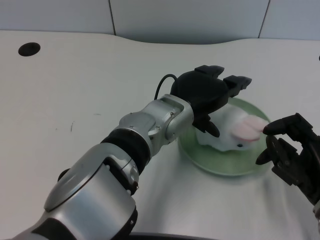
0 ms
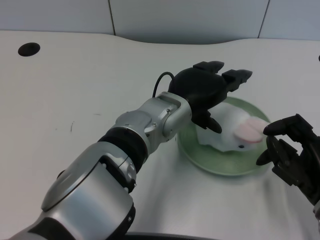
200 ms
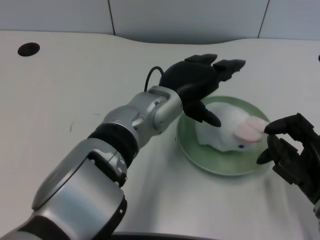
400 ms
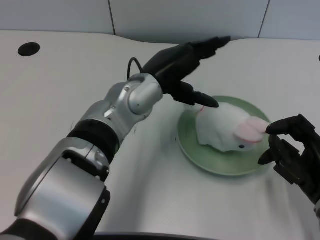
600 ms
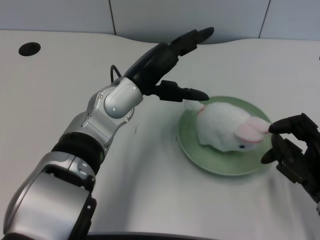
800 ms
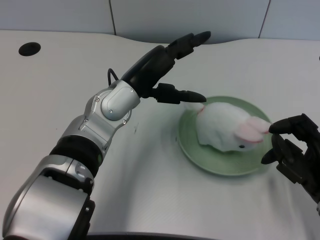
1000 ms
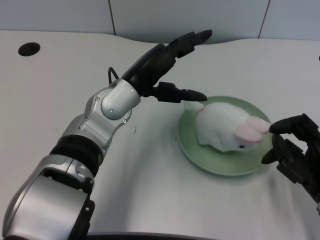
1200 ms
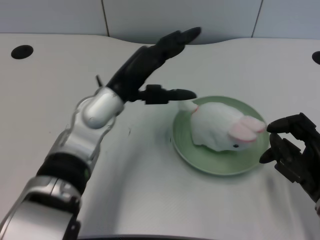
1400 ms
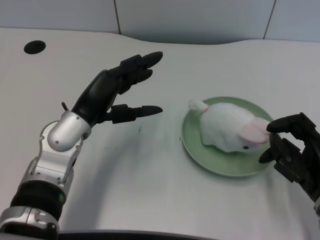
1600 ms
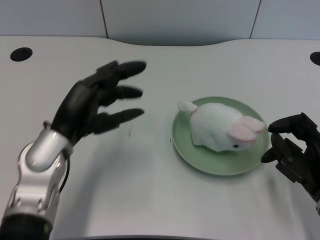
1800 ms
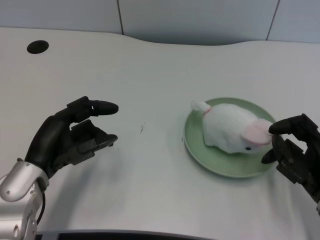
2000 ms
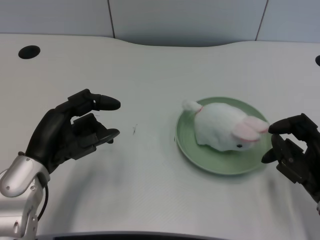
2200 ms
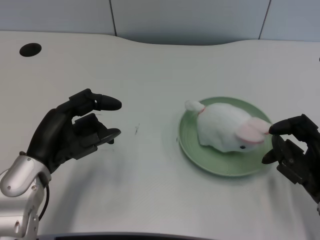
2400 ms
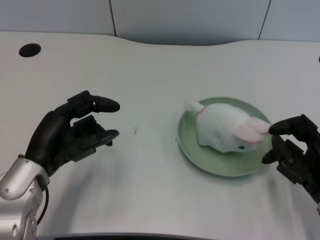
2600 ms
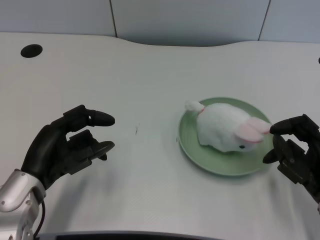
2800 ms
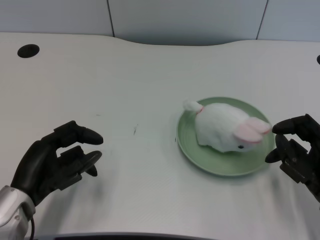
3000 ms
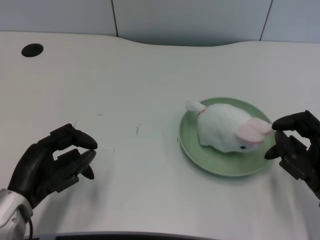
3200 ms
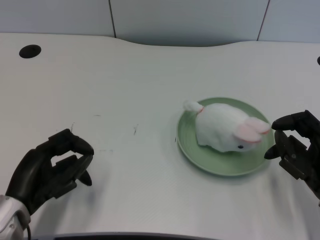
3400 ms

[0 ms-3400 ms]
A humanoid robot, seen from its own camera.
Task of the whole recording: pick up the rabbit doll from the table and place it on the plate.
0 ms to 1600 ms: The left hand shifts some 15 cm to the left.
1600 ms to 3400 ms: The left hand travels backward, to the left and downward by about 15 cm.

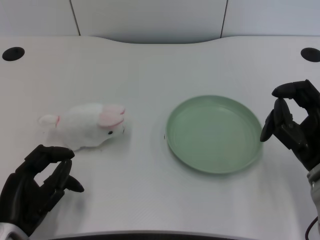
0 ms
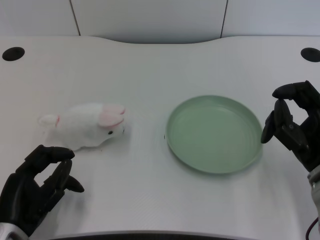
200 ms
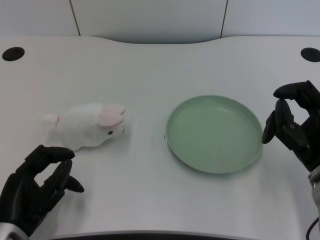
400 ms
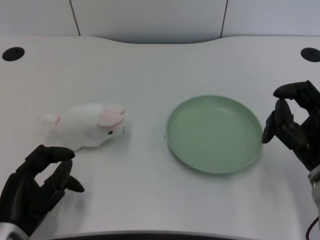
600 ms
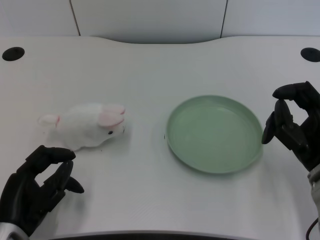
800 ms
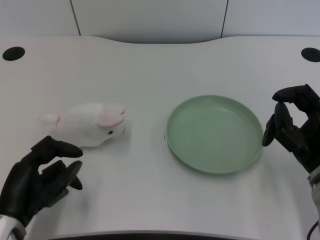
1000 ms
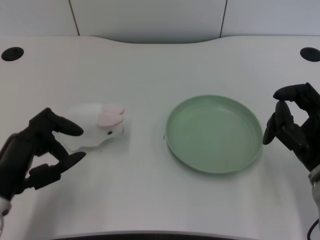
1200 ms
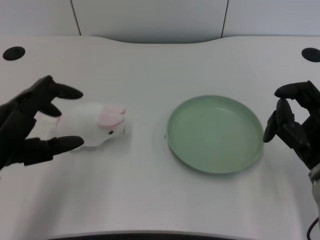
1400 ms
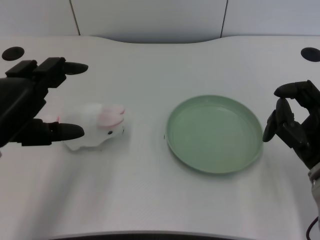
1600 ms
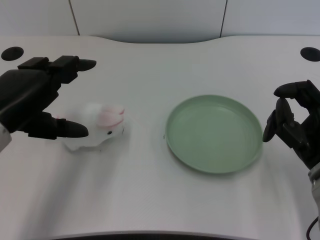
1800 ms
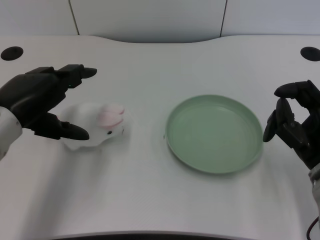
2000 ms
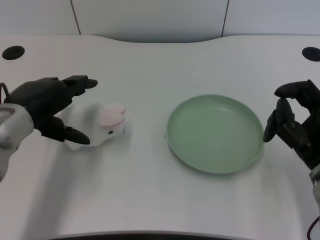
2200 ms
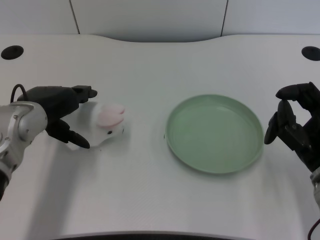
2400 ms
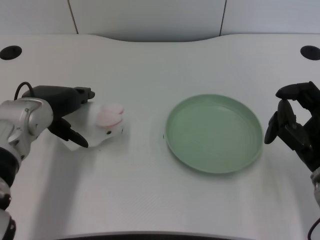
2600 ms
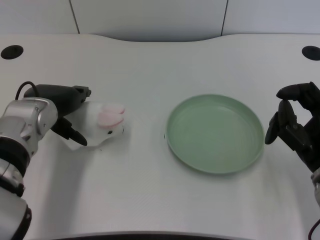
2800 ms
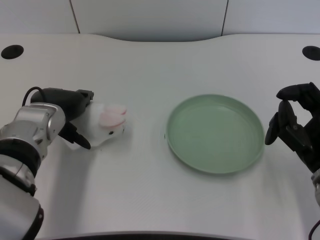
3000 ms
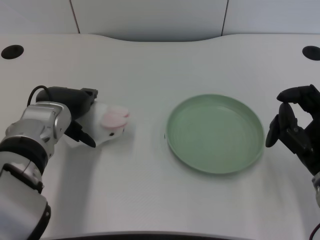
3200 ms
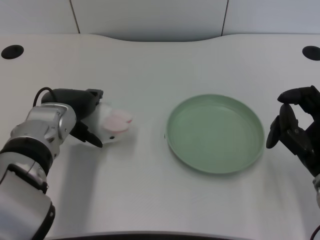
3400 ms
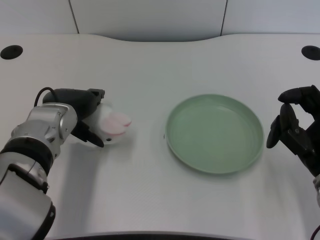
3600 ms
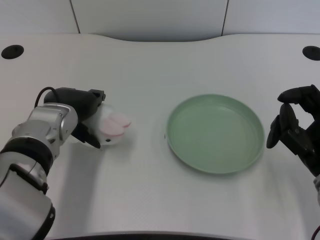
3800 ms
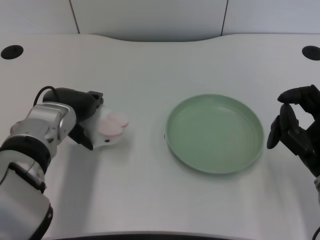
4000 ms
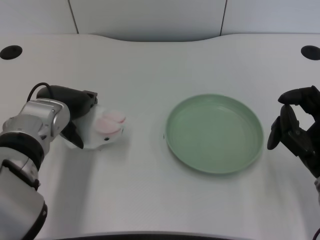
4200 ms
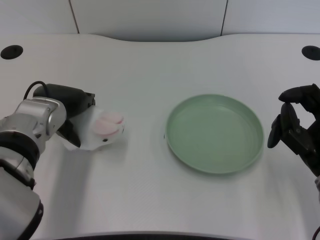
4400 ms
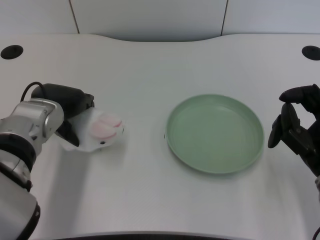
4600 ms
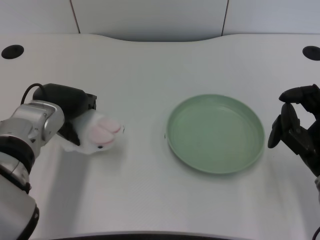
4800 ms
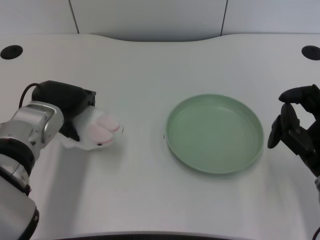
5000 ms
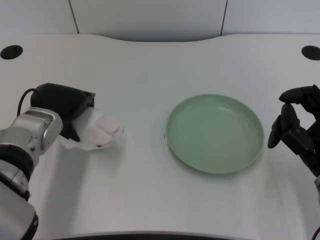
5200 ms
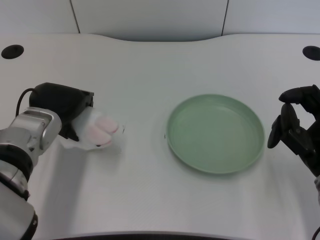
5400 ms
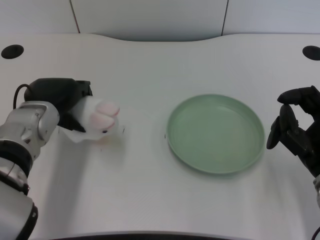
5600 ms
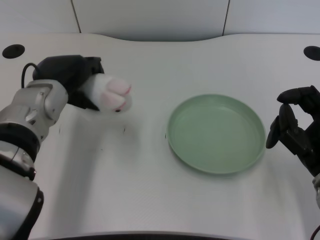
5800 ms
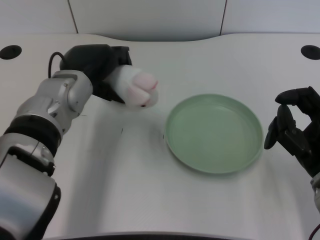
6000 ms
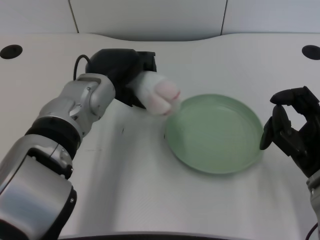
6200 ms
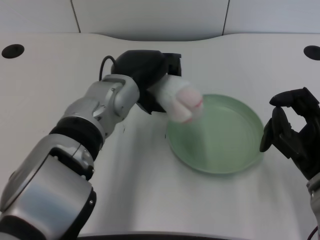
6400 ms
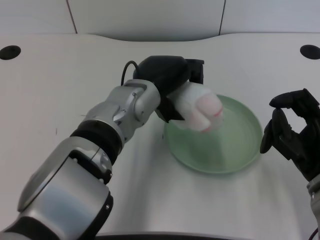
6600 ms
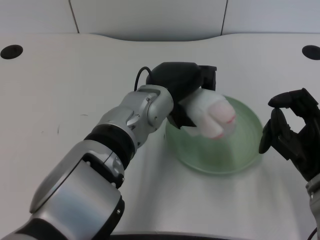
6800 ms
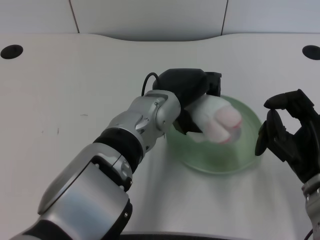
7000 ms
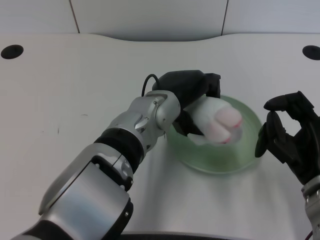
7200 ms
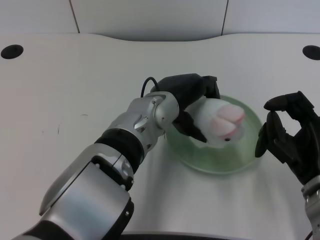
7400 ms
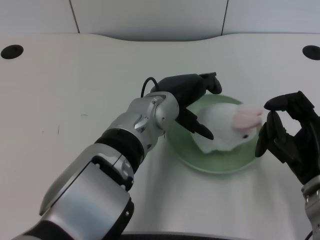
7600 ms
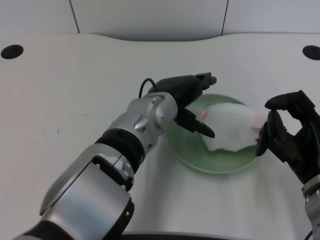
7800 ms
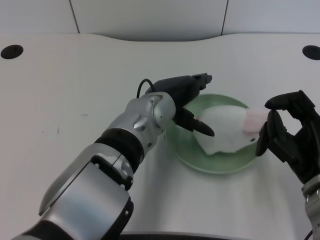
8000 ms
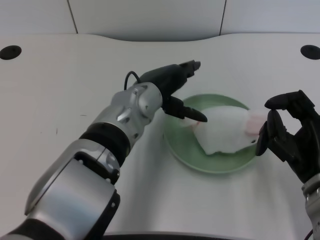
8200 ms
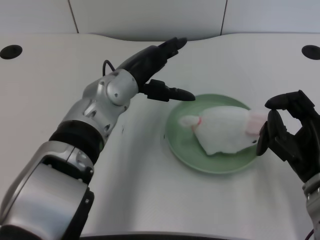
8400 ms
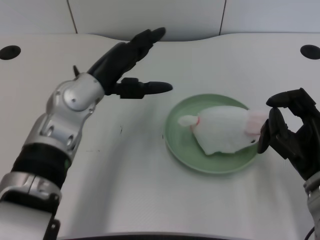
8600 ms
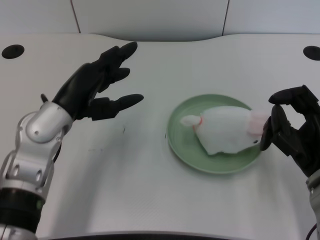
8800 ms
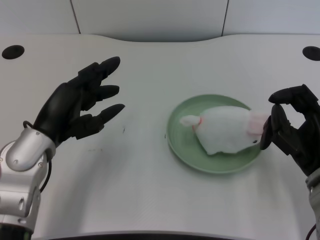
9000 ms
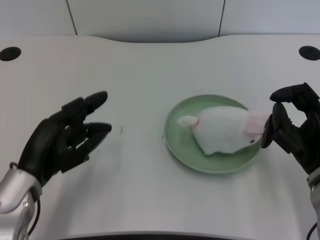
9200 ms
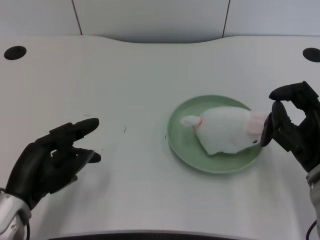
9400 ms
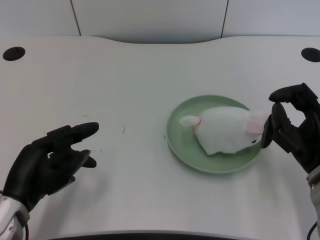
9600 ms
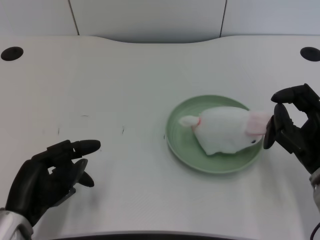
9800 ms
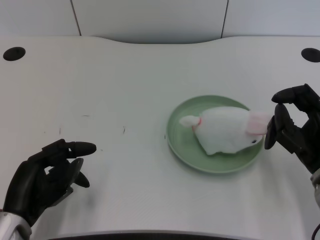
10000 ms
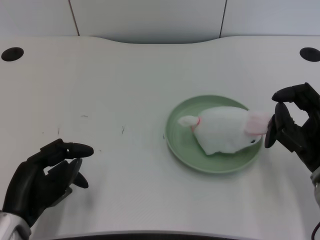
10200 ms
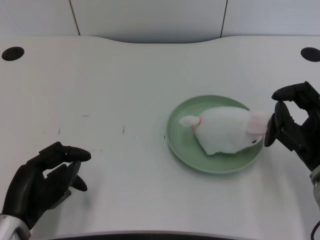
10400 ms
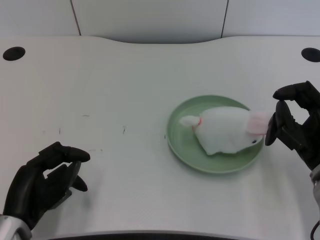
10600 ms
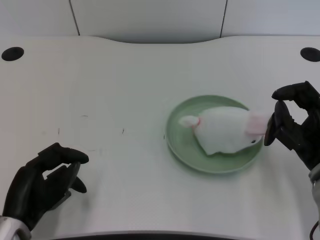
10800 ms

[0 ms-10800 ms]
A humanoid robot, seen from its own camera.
Task of the whole recording: pick up the rabbit doll from the table and place it on the plate.
Step, 1000 ms to 5400 ms: Grasp the rabbit doll with the left gripper.
Step, 5800 ms to 7600 ms: Place the rabbit doll into the plate with the left gripper.
1600 ms to 3000 ms: The left hand moves forward, to the right and downward, roughly 15 cm.
3000 ms to 4600 ms: The hands make only small movements.
4600 ms to 6200 ms: The left hand heads to the right, covering some 5 cm.
6200 ms to 7800 ms: The left hand travels to the right by about 10 cm.
7800 ms to 9200 ms: The left hand is displaced to the left and backward by about 20 cm.
9200 ms to 10800 ms: The left hand shifts some 5 cm downward.

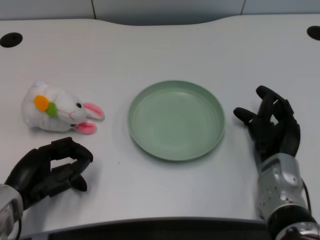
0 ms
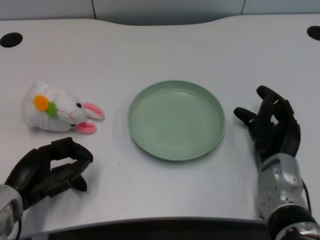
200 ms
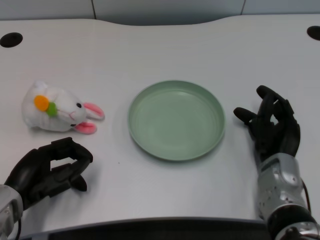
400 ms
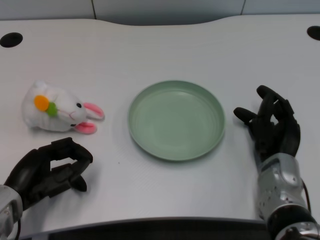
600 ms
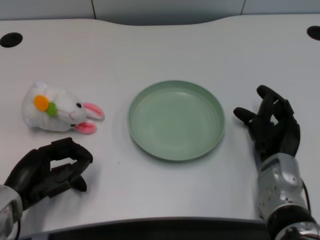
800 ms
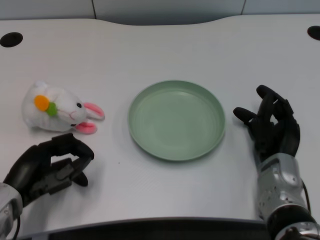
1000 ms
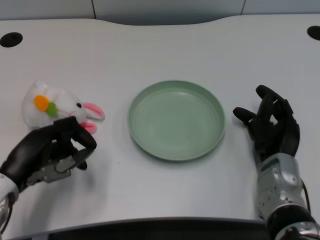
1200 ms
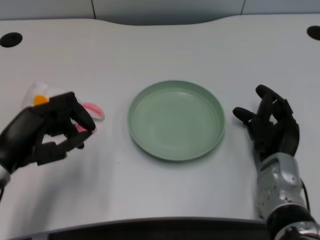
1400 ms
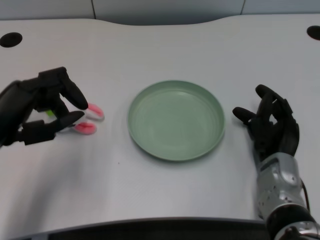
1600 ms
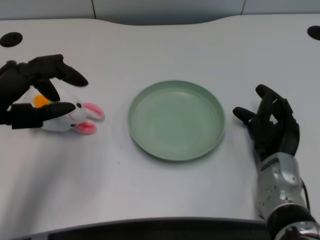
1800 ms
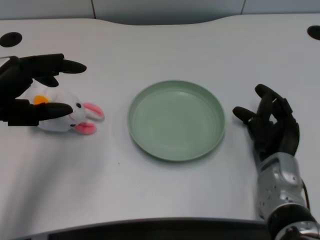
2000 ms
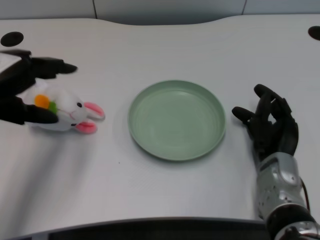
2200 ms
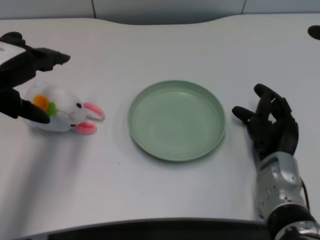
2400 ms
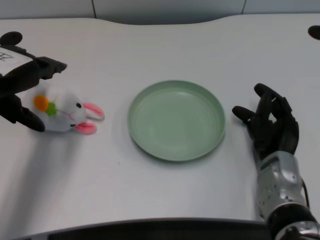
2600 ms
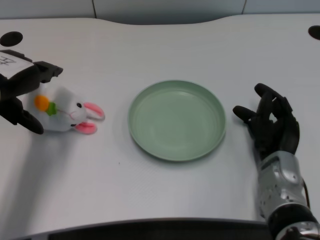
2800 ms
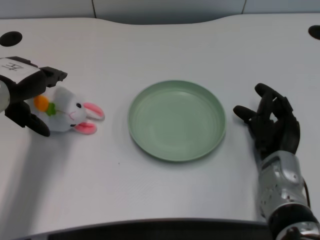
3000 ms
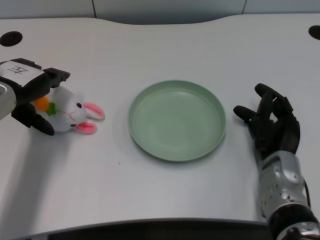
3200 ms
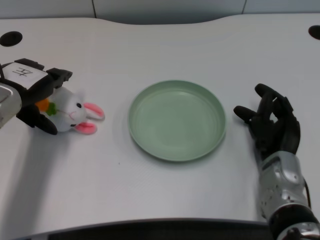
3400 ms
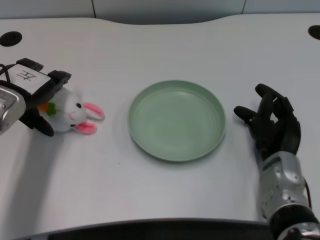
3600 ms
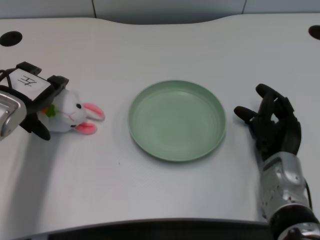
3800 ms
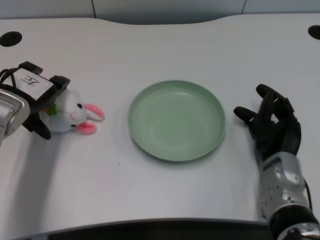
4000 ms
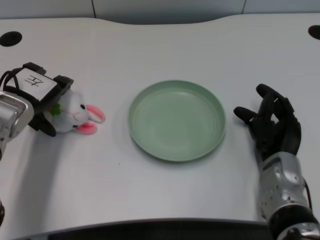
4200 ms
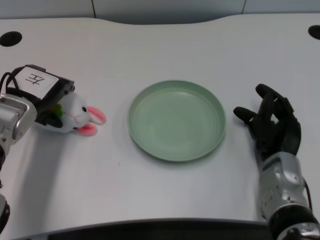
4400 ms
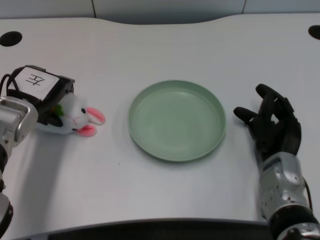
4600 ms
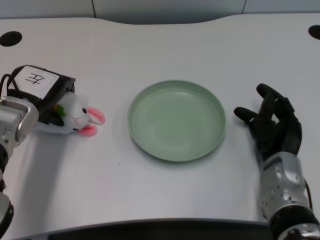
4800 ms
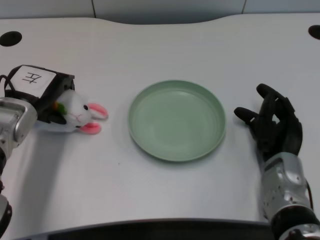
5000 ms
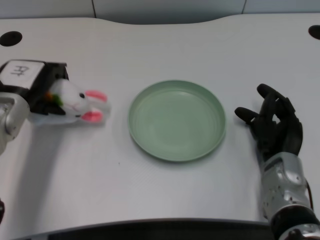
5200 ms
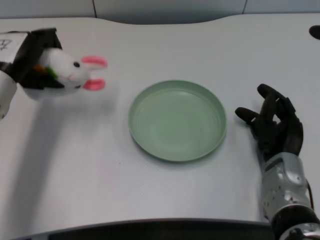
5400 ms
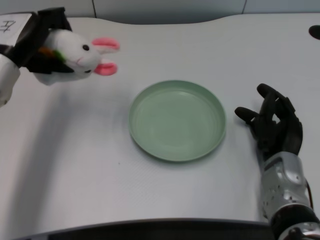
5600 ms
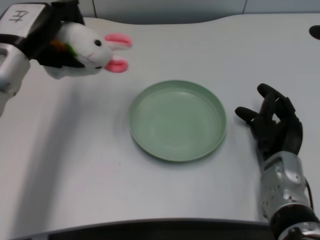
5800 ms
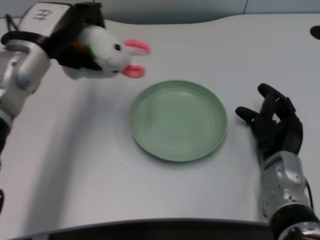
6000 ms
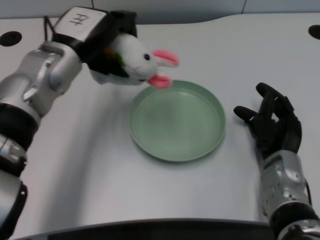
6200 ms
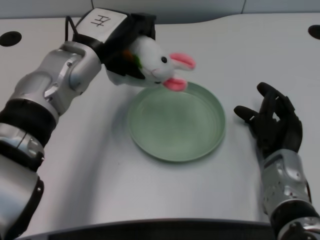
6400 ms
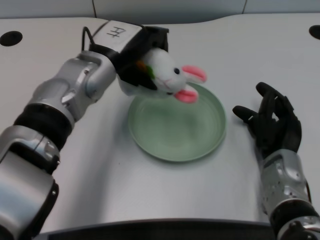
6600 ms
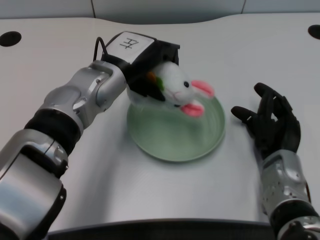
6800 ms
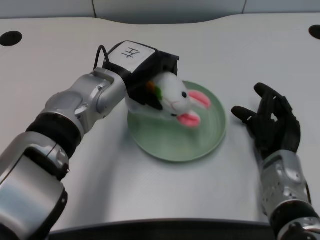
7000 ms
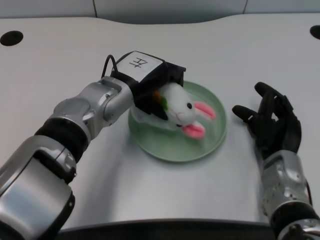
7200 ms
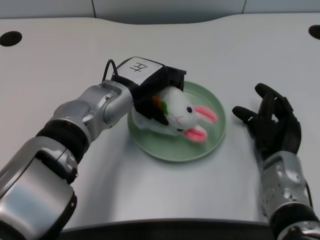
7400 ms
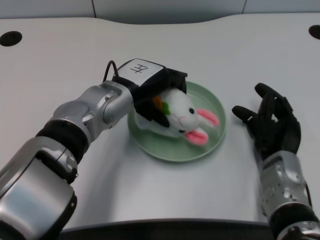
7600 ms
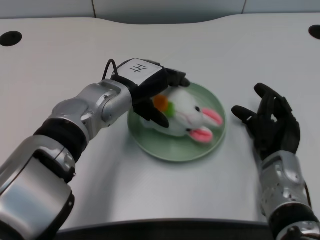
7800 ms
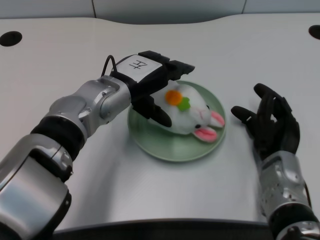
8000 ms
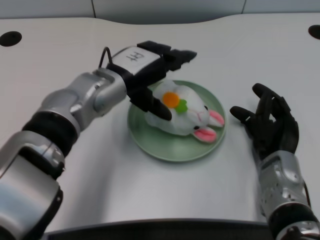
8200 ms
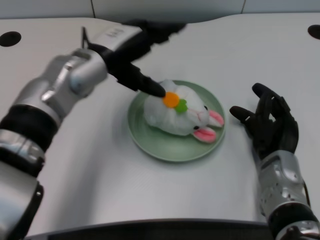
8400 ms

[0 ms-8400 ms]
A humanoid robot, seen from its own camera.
Task of the whole recording: pick up the rabbit doll from the table and place it on the plate.
Step, 1000 ms to 5200 ms: Grasp the rabbit doll with the left gripper.
Step, 5400 ms to 8000 ms: Place the rabbit doll into the plate with the left gripper.
1400 ms to 2800 ms: The left hand goes about 10 cm forward and upward.
2800 ms to 4200 ms: The left hand travels downward by approximately 10 cm.
4200 ms to 5600 ms: The left hand is displaced upward by some 5 cm.
5600 ms to 7000 ms: The left hand moves to the right, some 15 cm.
